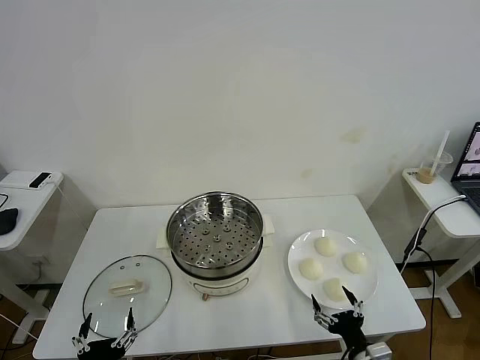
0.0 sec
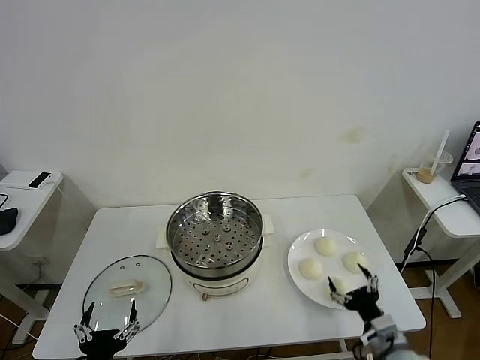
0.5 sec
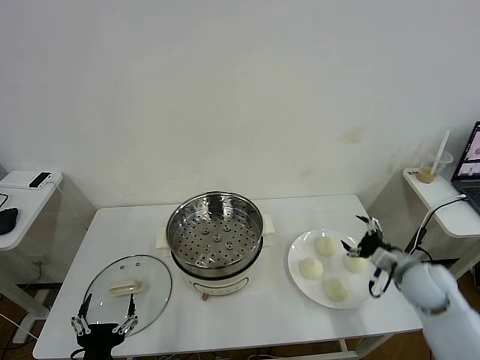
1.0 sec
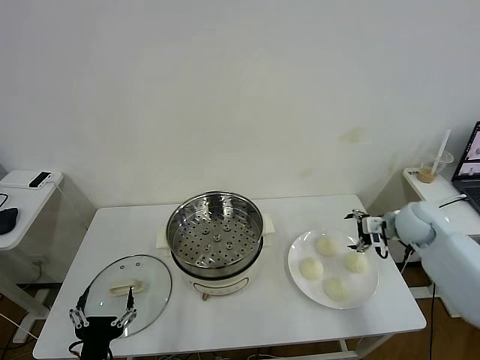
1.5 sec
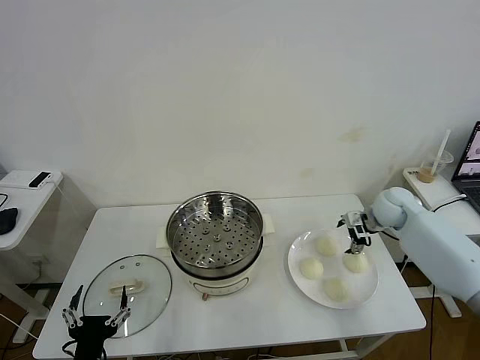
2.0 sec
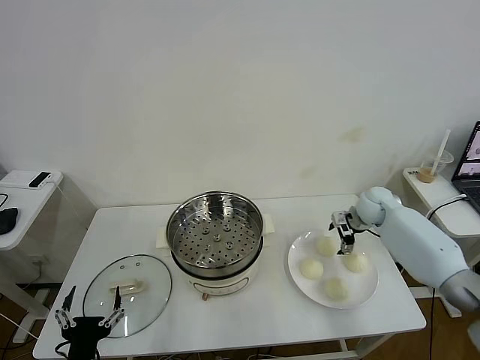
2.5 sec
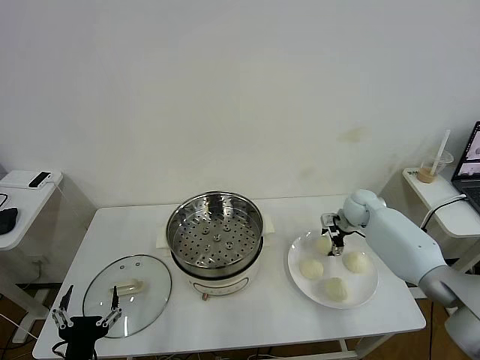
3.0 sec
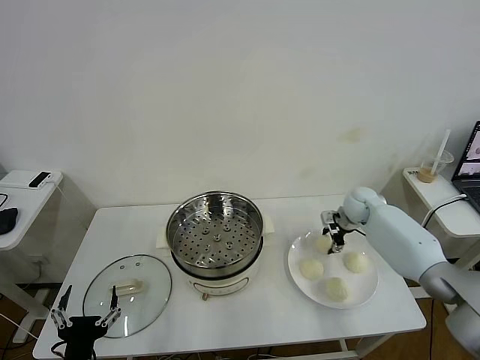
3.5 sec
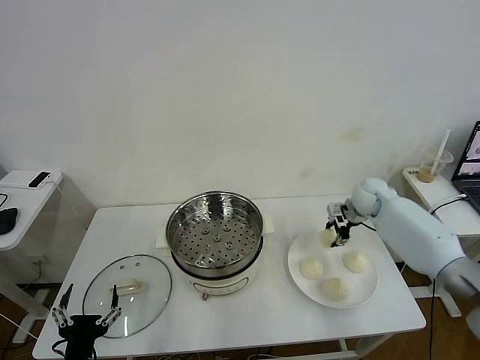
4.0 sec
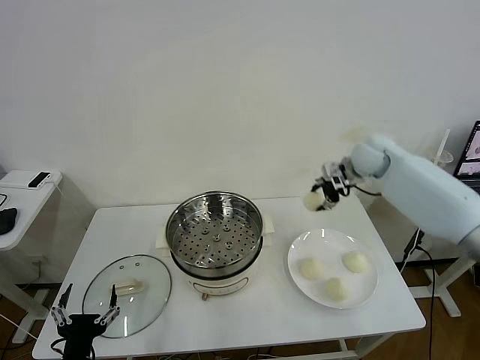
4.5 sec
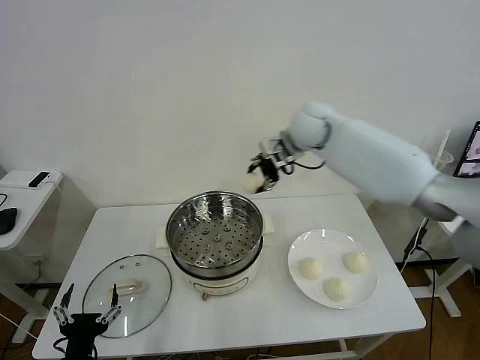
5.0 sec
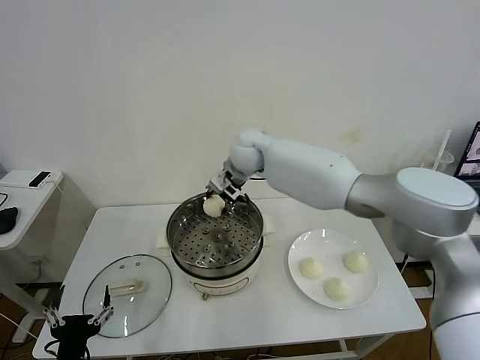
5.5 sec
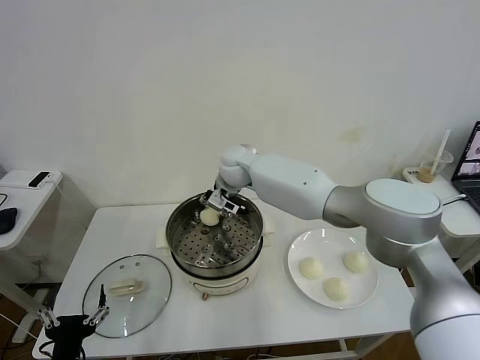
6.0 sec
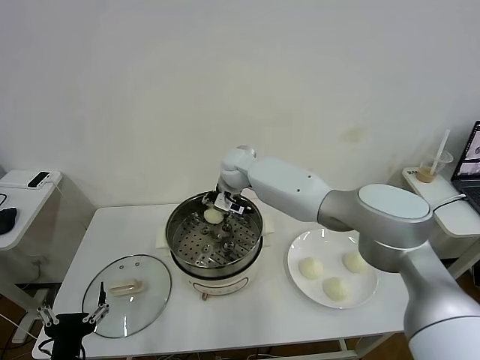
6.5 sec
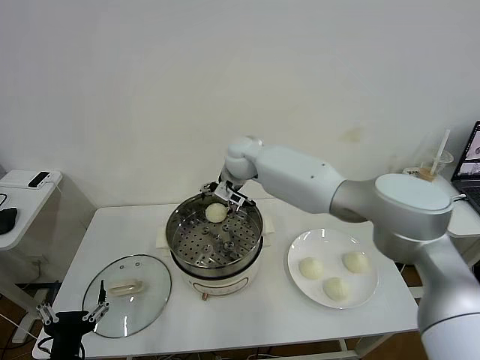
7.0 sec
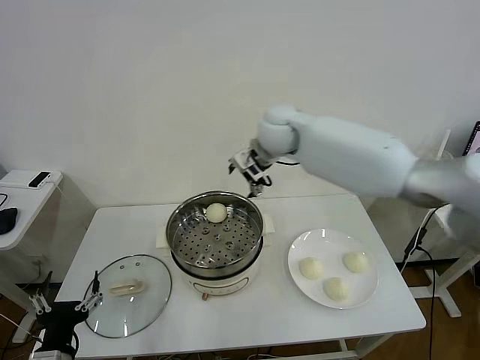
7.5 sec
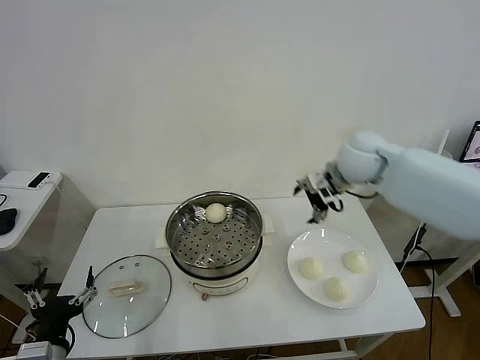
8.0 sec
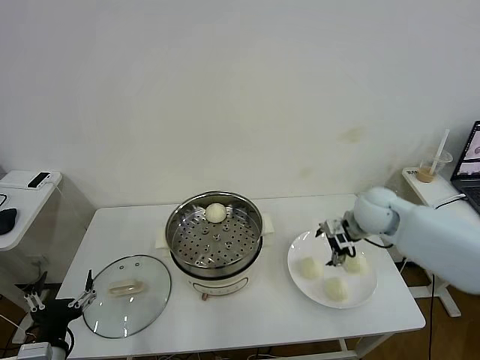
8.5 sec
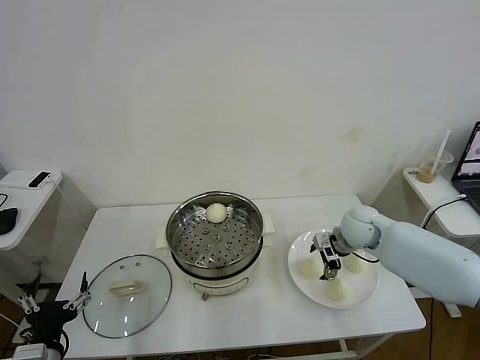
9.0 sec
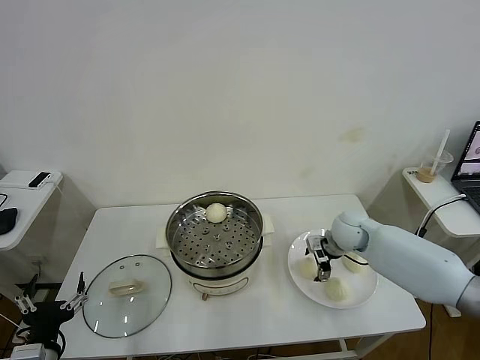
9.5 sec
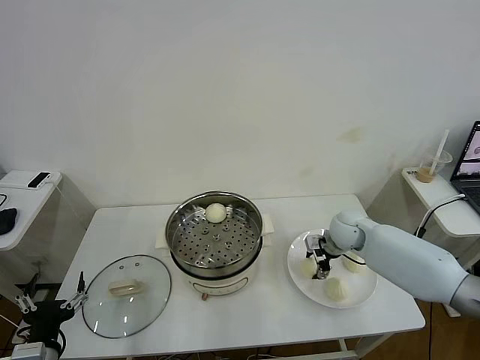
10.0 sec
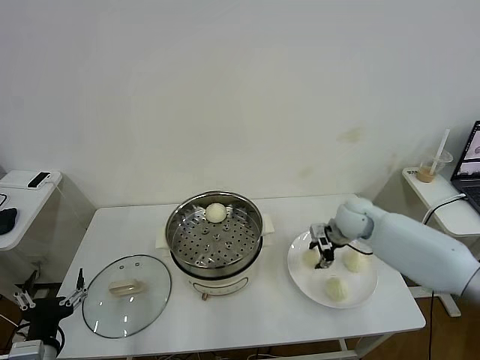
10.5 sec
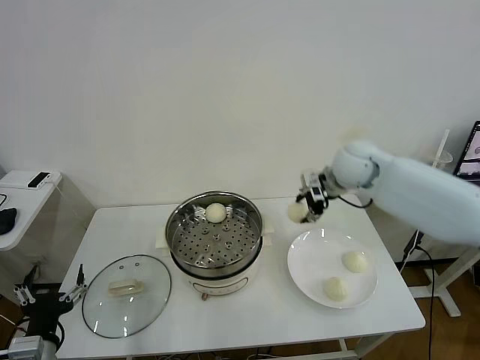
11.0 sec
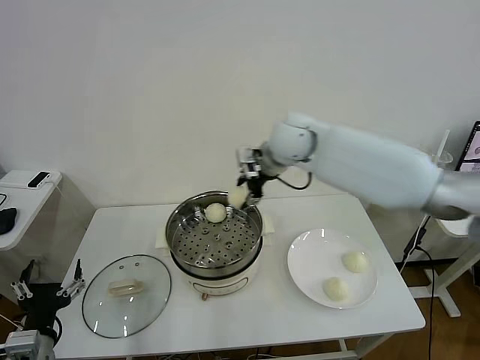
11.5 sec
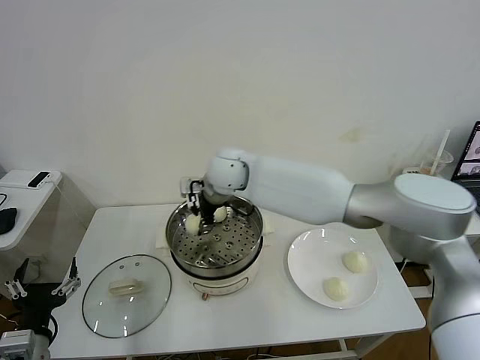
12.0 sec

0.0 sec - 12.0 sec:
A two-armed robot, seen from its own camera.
Task of the whole recording: take steamed baozi put them in steamer then cover it.
Step, 0.0 sec - 3.0 sec: Grasp the baozi in the plate with right gripper.
Step, 3.5 sec - 7.0 sec: Place the baozi on the steamer with right gripper.
Step, 7.5 sec - 10.0 sec: Grasp the baozi in the plate with right gripper.
2.0 sec - 4.0 sec: The right gripper shifts by roughly 5 cm, and closes up.
4.0 sec - 6.0 sec: The right gripper is displaced to the left by about 35 cm.
6.0 sec - 8.0 sec: The right gripper goes approximately 25 cm to the right, and opens up.
8.0 sec - 10.0 sec: The right gripper shifts roughly 20 cm downward, and closes.
10.0 sec - 12.0 sec: The right gripper shifts some 35 cm to the left and upward.

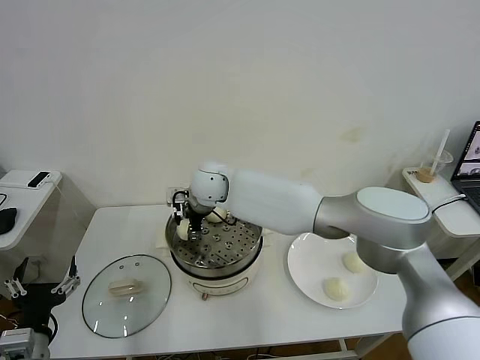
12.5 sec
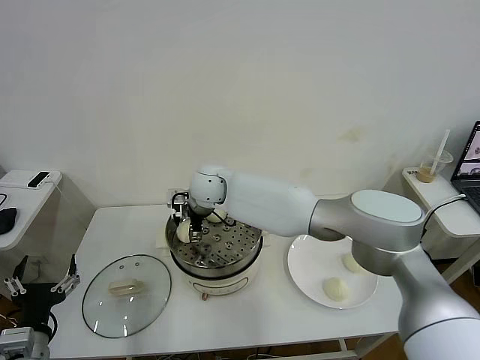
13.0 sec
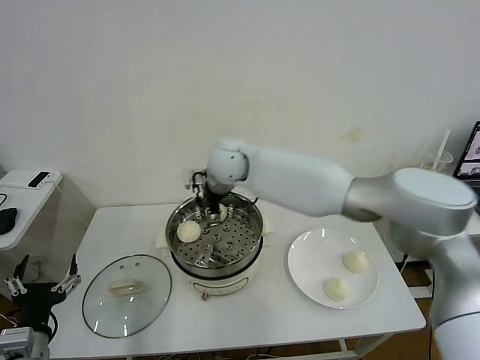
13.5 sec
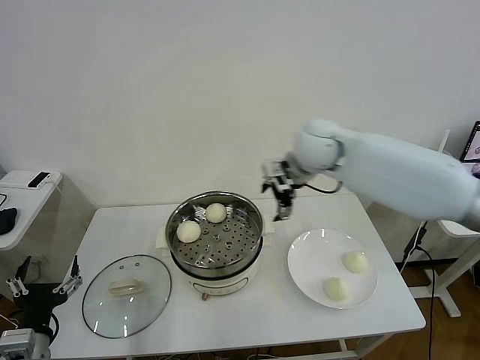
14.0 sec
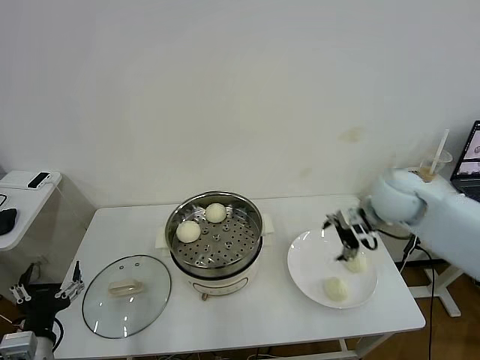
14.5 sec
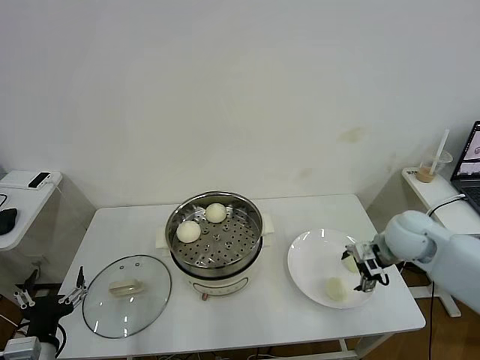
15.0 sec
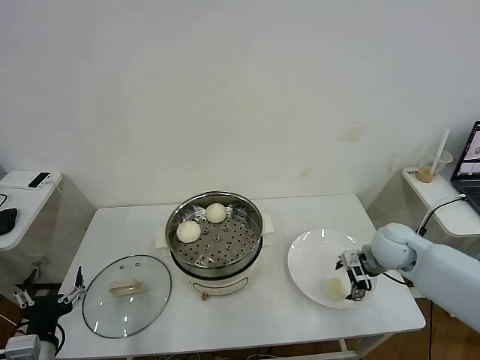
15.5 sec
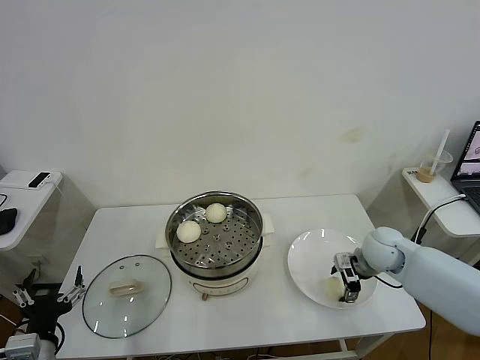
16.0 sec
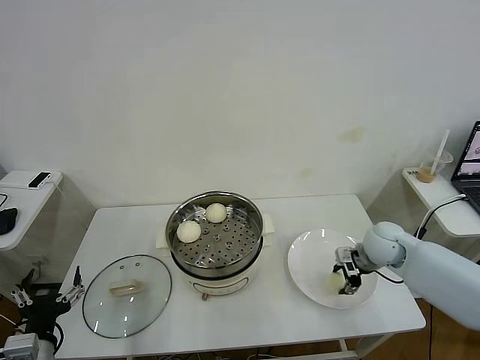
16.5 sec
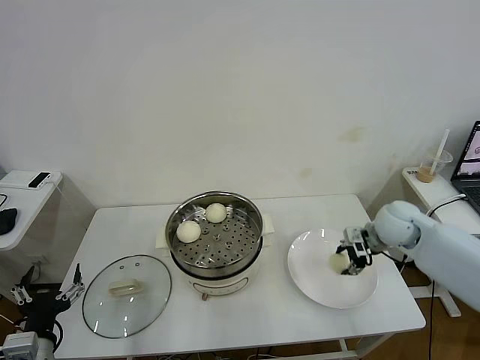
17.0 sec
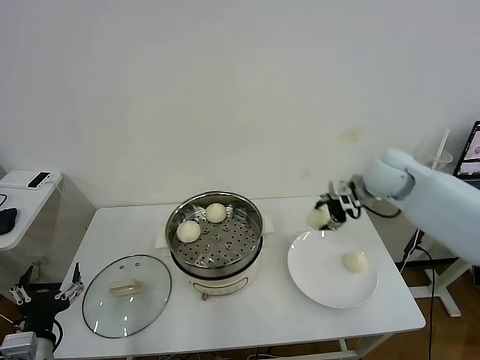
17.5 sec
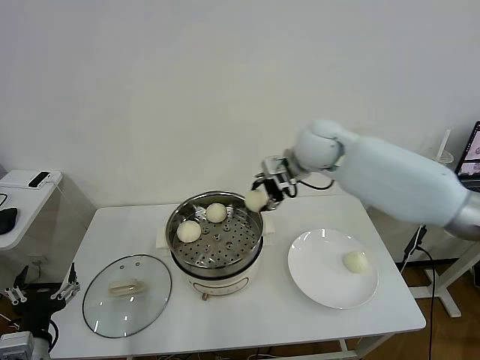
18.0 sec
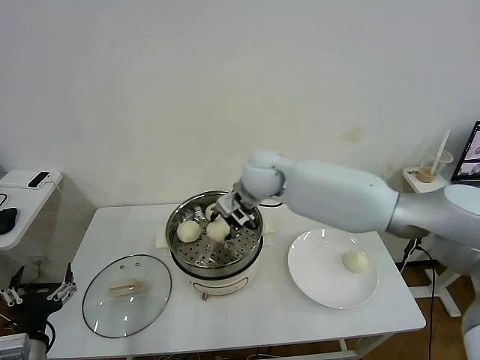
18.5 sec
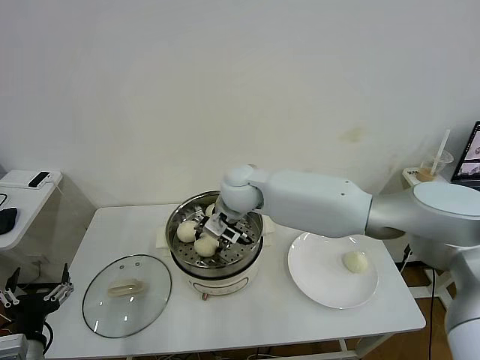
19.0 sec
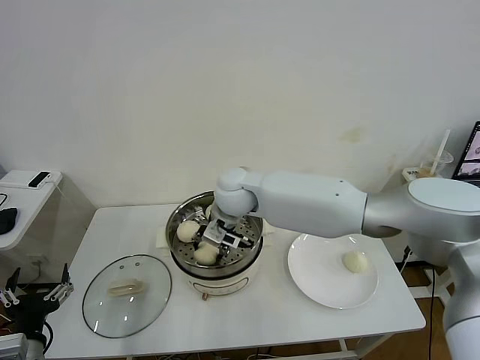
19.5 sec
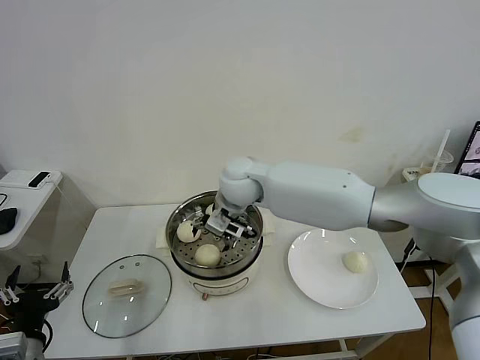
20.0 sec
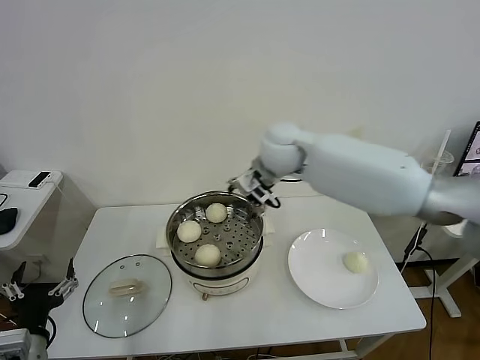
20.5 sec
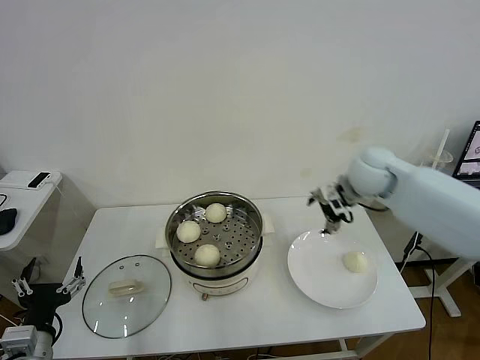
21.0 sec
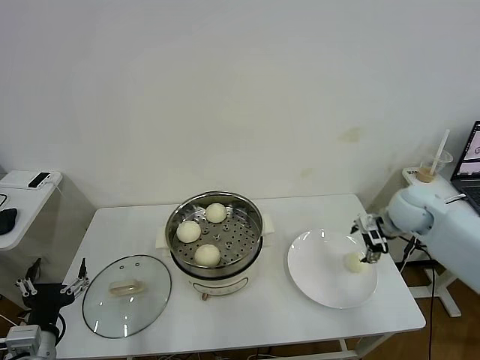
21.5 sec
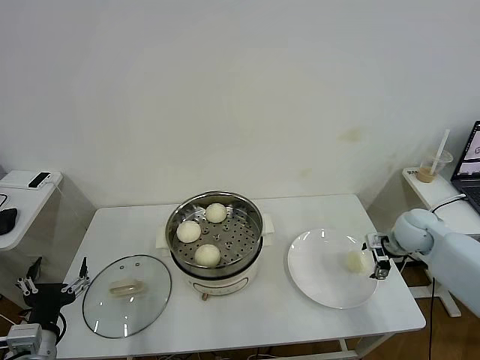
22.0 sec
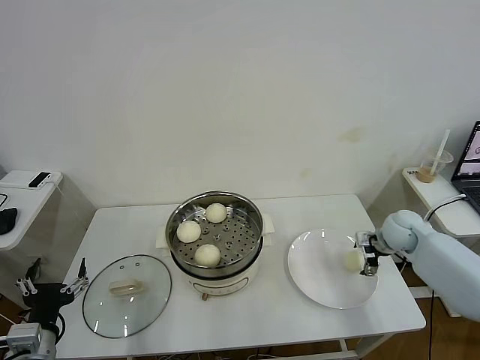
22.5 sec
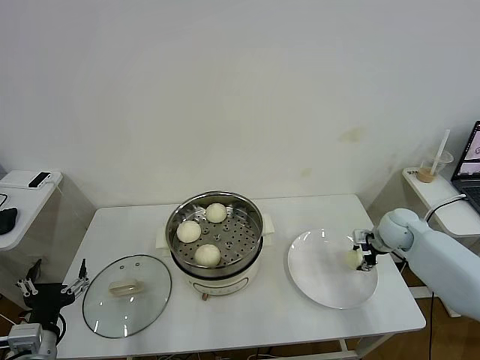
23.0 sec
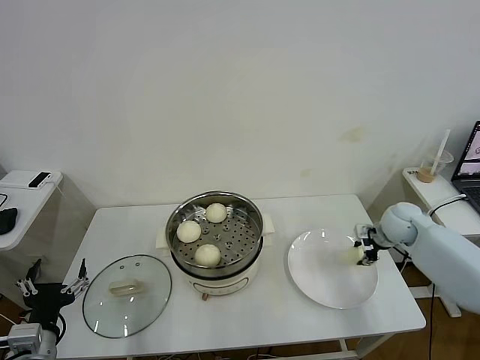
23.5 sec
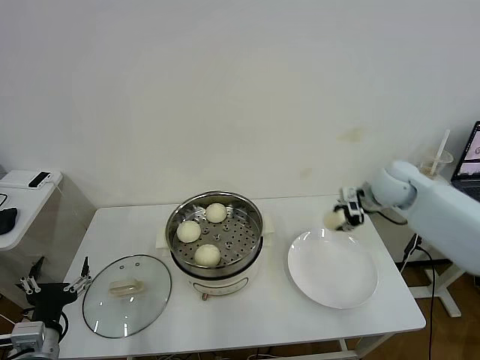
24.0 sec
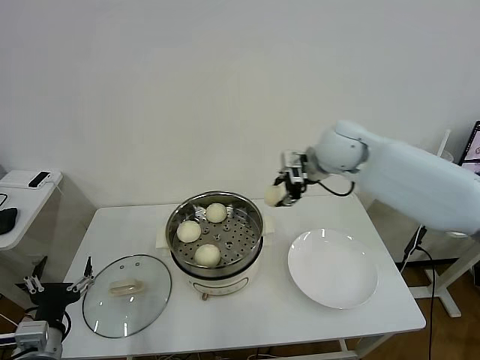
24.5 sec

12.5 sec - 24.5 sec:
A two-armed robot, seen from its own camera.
Task of the whole recording: take steamed baozi put them in steamer then cover it.
Step, 13.5 sec - 16.0 sec: Grasp the baozi in the plate with right gripper.
Step, 16.5 sec - 20.0 sec: Place the baozi on the steamer with right gripper.
Step, 20.5 sec - 23.0 sec: Grasp the baozi in the plate with right gripper.
12.5 sec - 14.5 sec: The right gripper goes approximately 40 cm to the right, and opens.
14.5 sec - 16.5 sec: The right gripper shifts about 15 cm downward, and closes.
16.5 sec - 18.5 sec: The right gripper moves to the left and upward, roughly 35 cm.
18.5 sec - 20.5 sec: The right gripper moves upward, about 5 cm, and opens up.
20.5 sec - 22.5 sec: The right gripper is displaced to the right and downward by some 40 cm.
22.5 sec - 24.5 sec: The right gripper is displaced upward and to the left by some 30 cm, and closes.

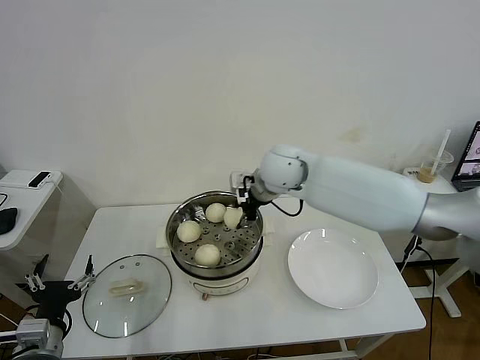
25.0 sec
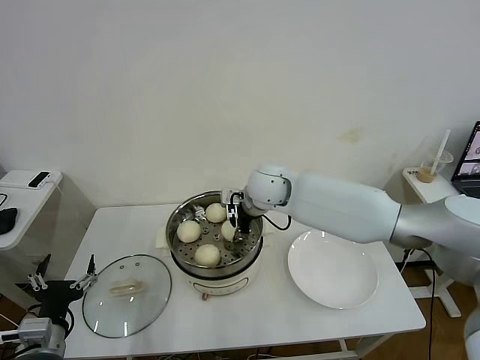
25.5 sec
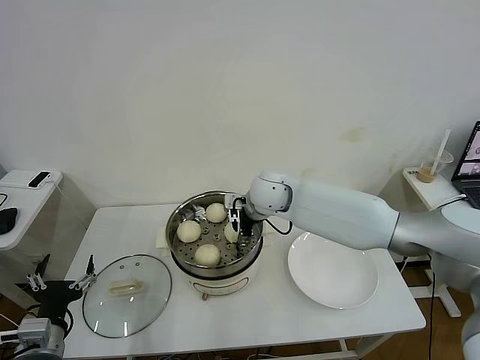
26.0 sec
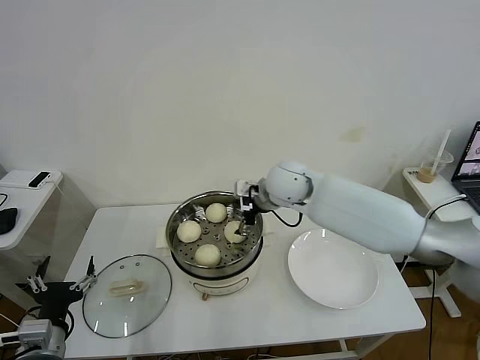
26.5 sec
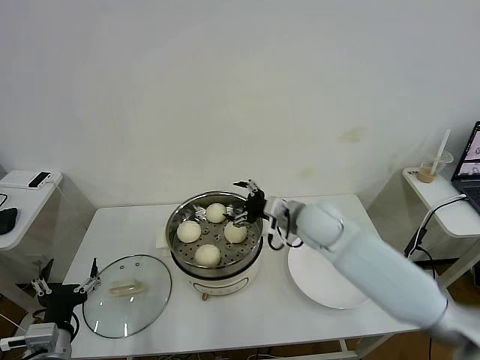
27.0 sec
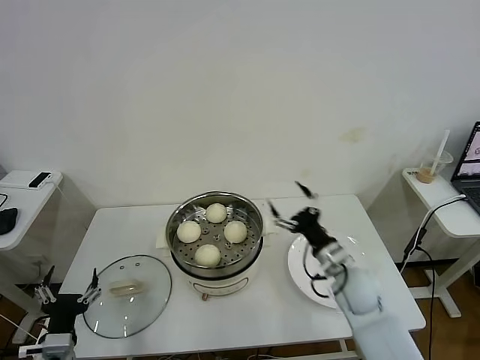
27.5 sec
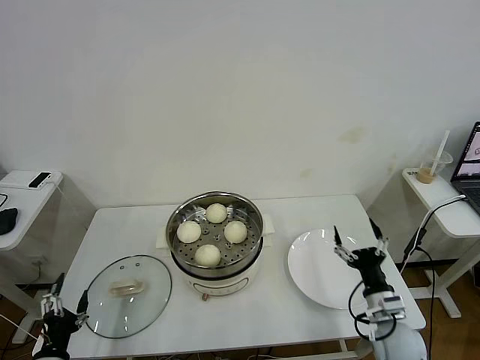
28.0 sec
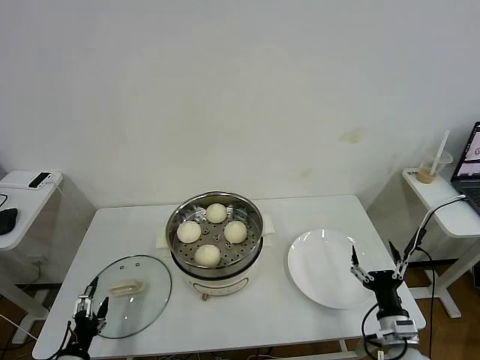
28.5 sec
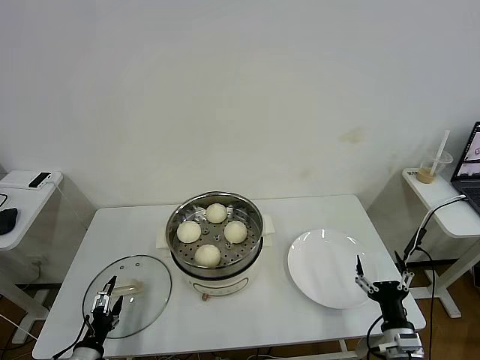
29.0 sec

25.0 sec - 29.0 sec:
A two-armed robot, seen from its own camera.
Task of the whole recording: take steamed baozi put them in steamer then cover it.
25.0 sec - 27.0 sec: The right gripper heads downward, to the right and backward, covering some 15 cm, and opens its fingers.
27.0 sec - 29.0 sec: The left gripper moves downward, some 15 cm. Meanwhile the right gripper travels backward, downward and to the right by approximately 35 cm.
